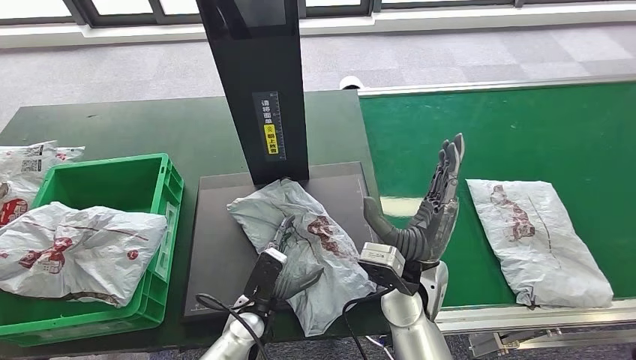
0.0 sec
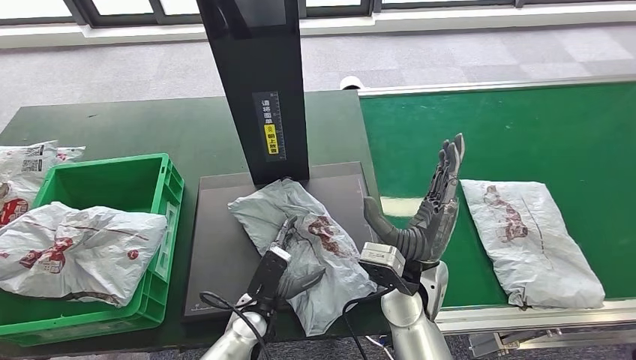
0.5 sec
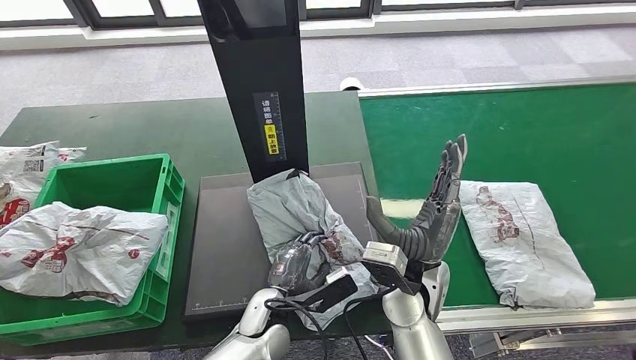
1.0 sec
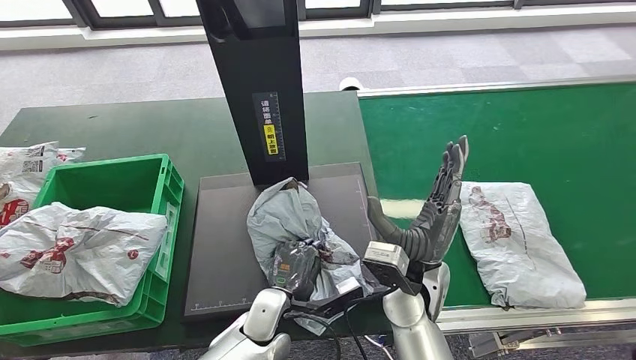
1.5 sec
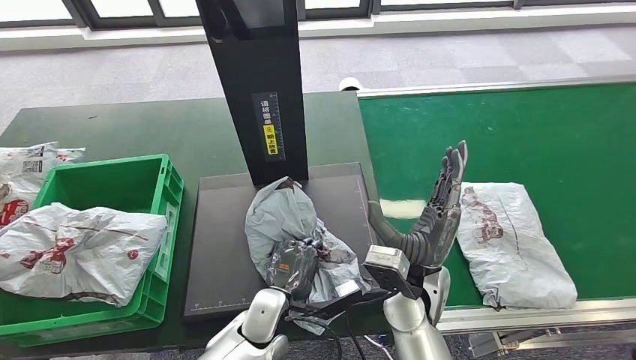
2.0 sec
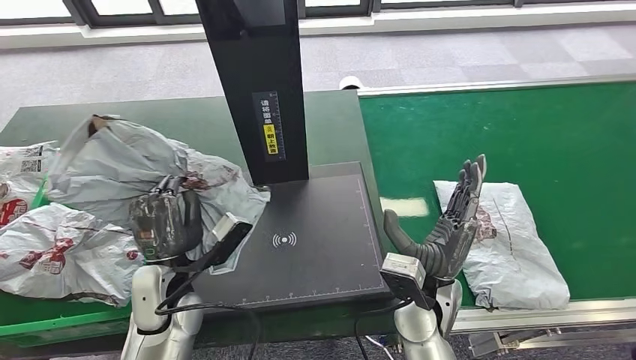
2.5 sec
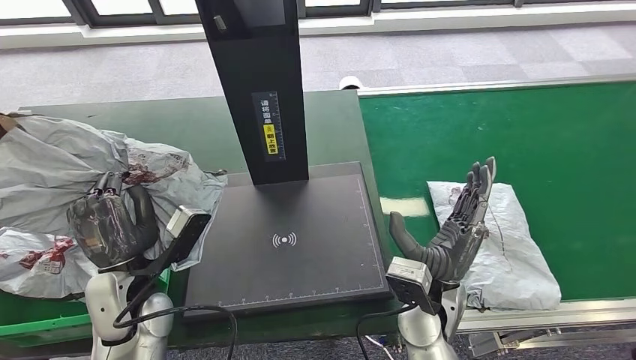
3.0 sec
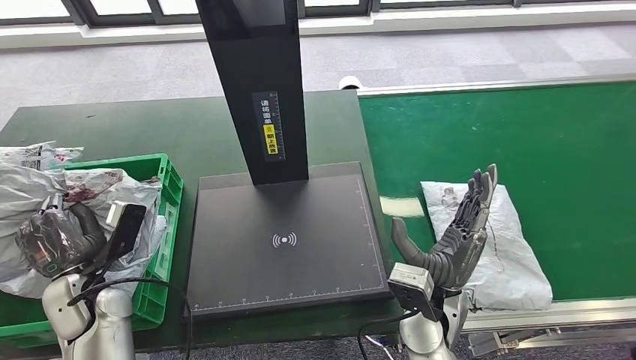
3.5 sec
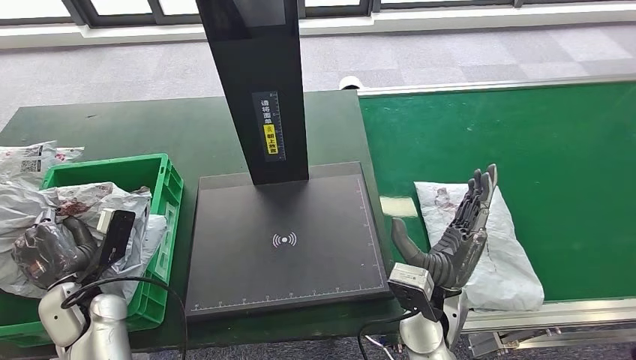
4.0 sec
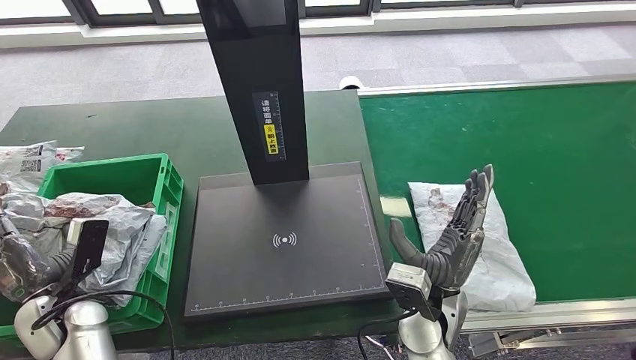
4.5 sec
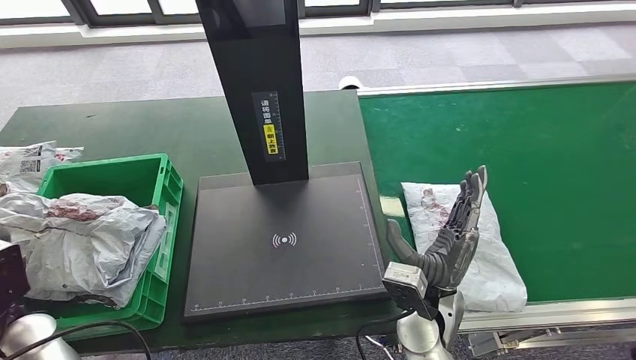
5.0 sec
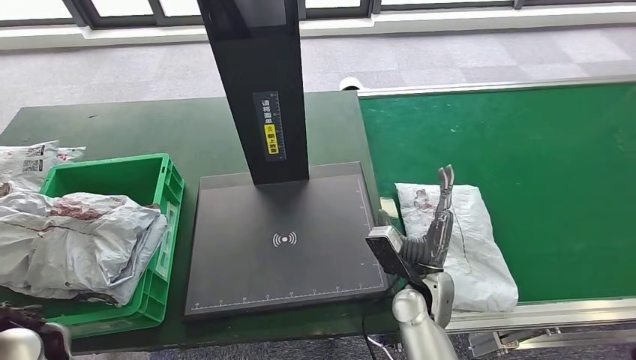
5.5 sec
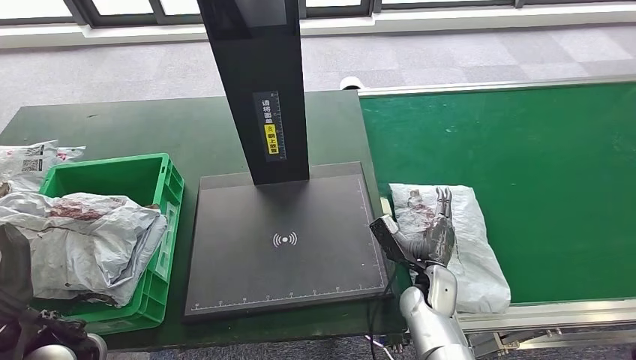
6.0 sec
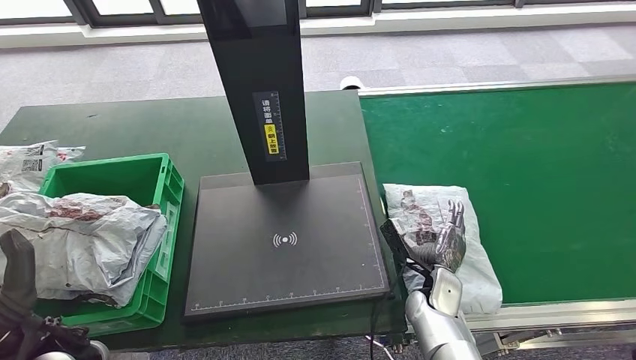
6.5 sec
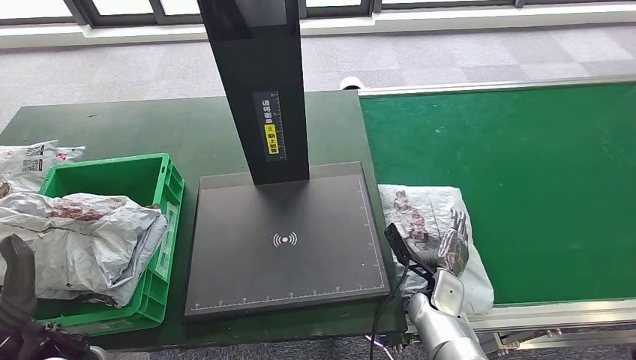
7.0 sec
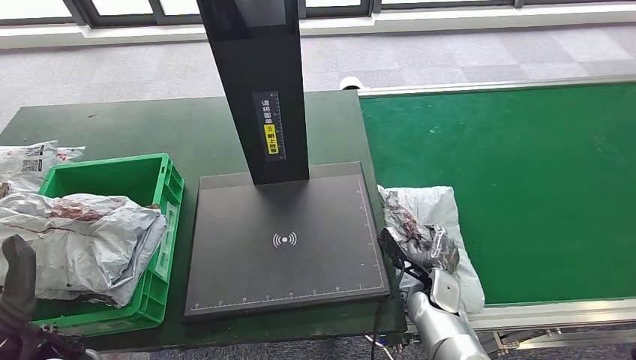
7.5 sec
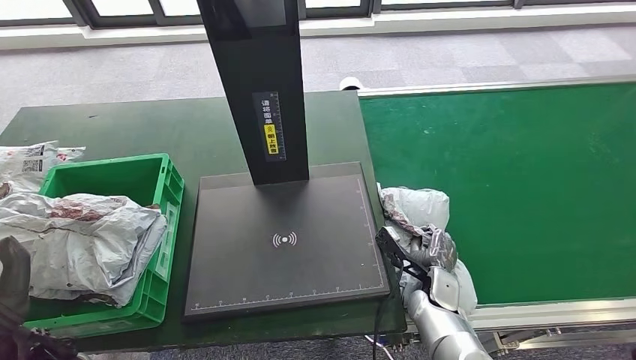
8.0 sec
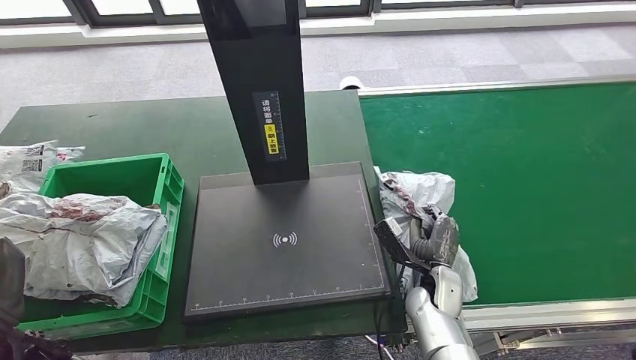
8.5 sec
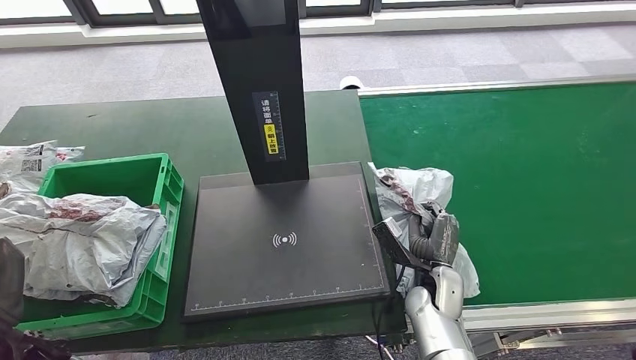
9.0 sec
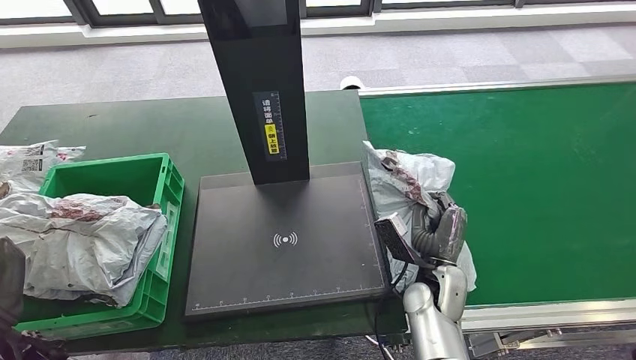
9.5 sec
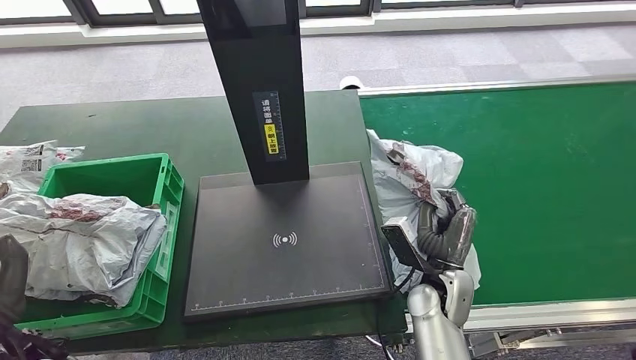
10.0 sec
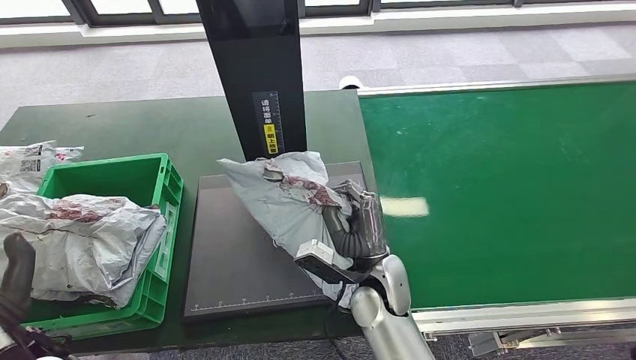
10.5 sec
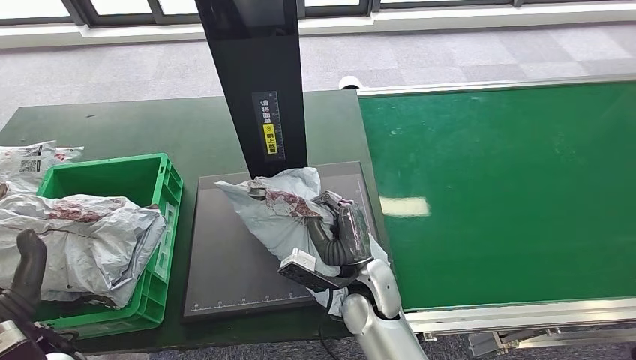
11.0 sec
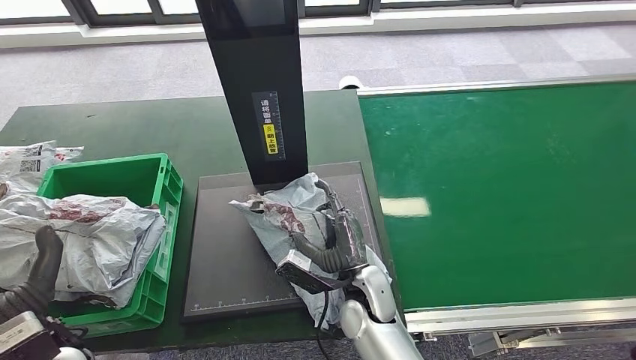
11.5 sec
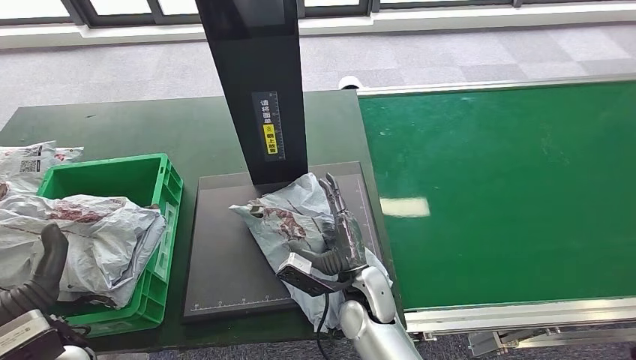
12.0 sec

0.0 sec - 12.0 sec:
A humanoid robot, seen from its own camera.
Step, 0.0 sec - 3.5 sec: Pick up the parcel from the inbound machine.
Step, 4.0 sec - 6.0 sec: Place the parcel into the delivery box.
Step, 6.5 sec - 8.5 sec: Pick up the parcel from the conveyor belt.
4.0 sec - 6.0 sec: The right hand heads downward, covering roughly 10 cm. The left hand is displaced upward and backward by approximately 10 cm.
8.0 sec - 10.0 sec: The right hand goes some 10 cm upward.
10.0 sec - 12.0 sec: The right hand goes roughly 15 cm to the left.

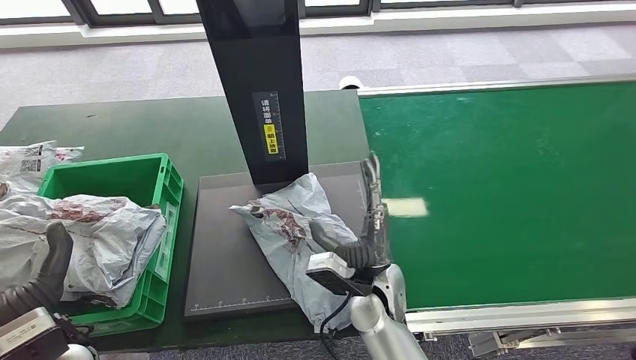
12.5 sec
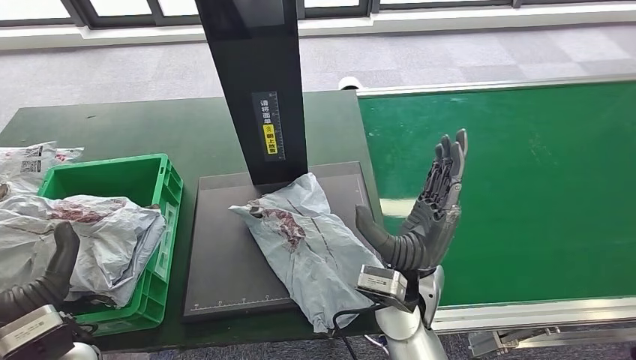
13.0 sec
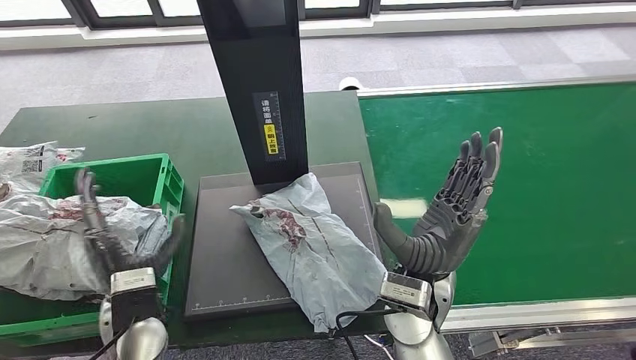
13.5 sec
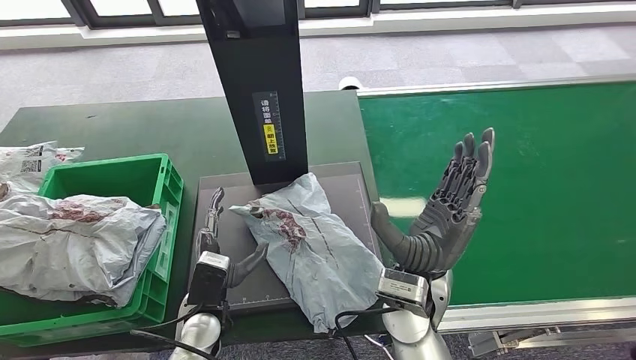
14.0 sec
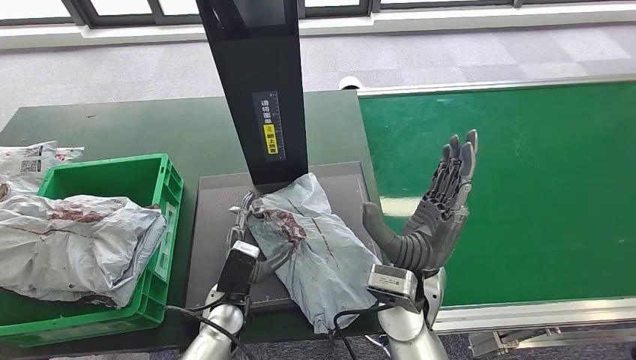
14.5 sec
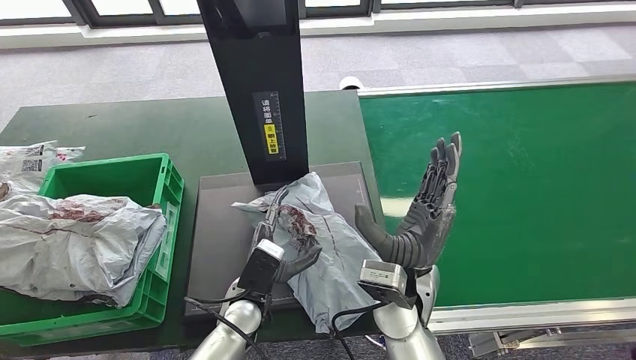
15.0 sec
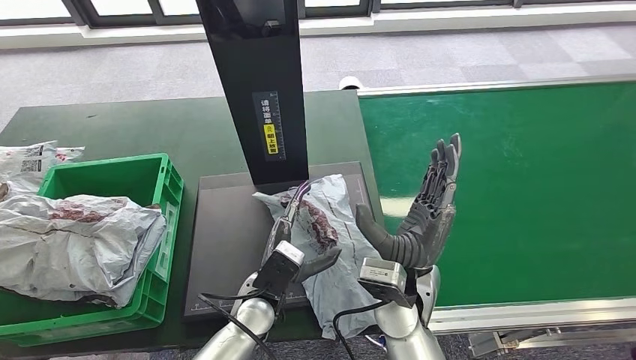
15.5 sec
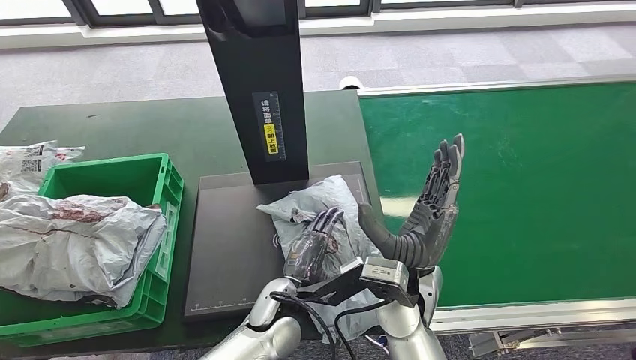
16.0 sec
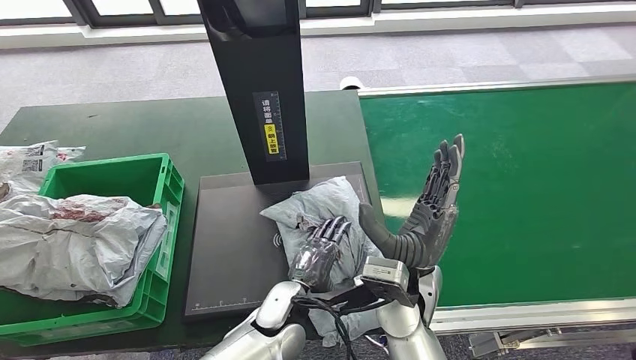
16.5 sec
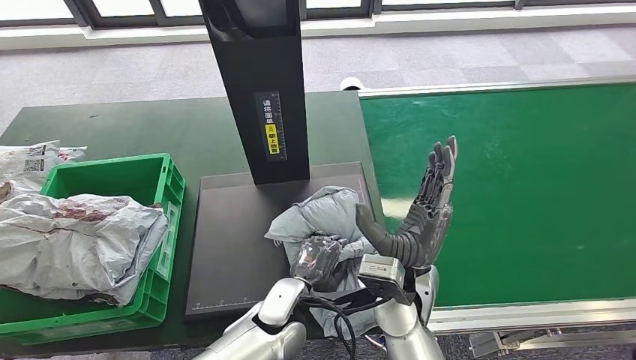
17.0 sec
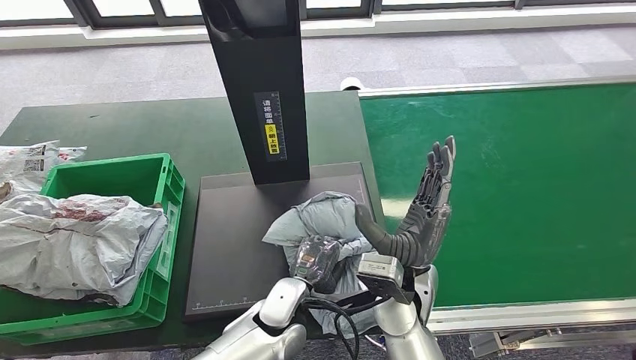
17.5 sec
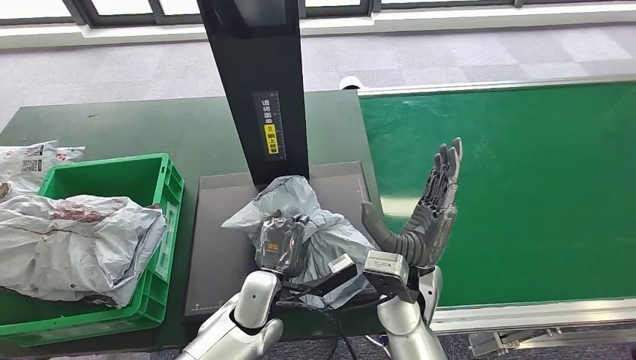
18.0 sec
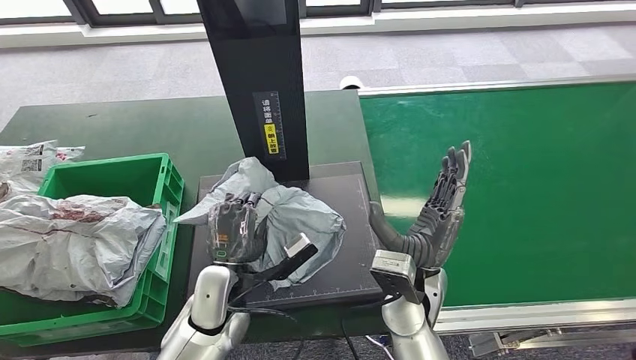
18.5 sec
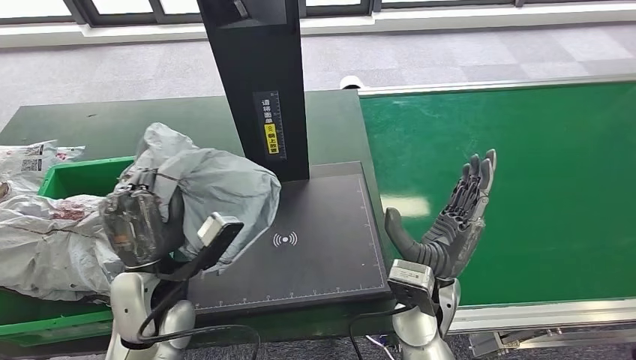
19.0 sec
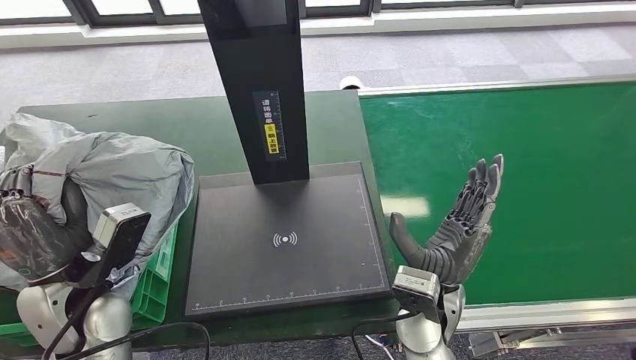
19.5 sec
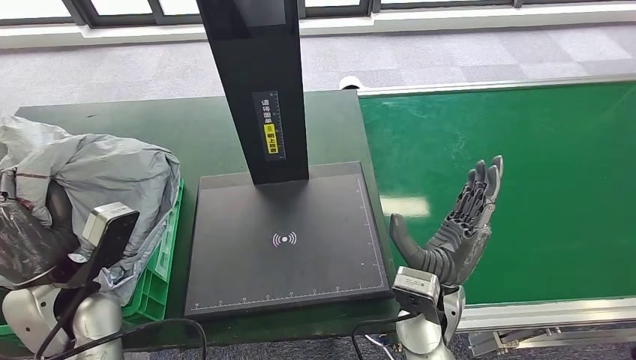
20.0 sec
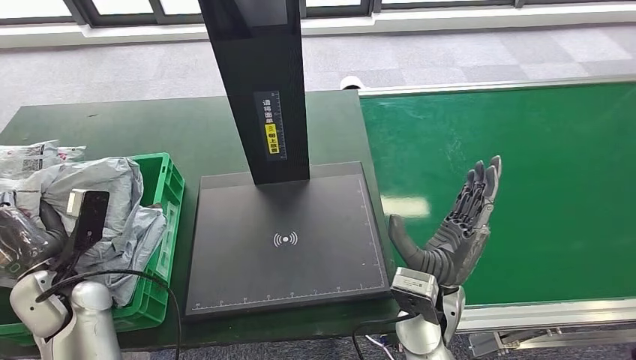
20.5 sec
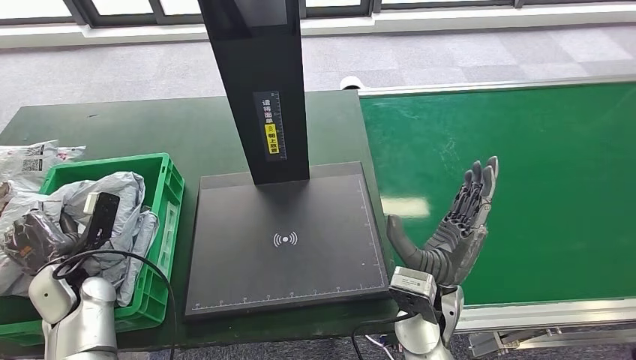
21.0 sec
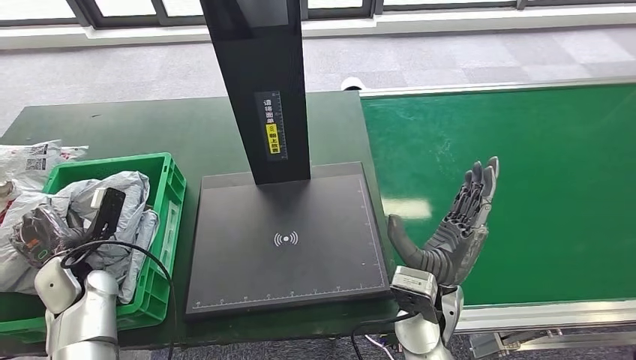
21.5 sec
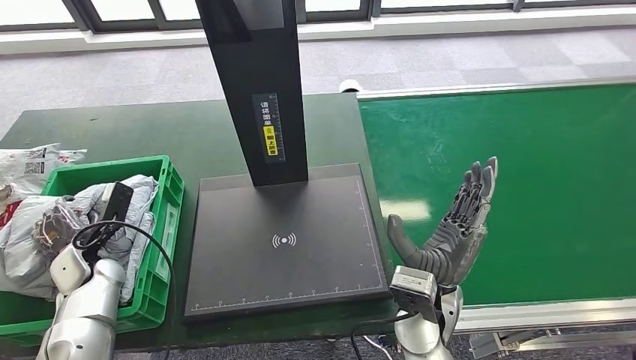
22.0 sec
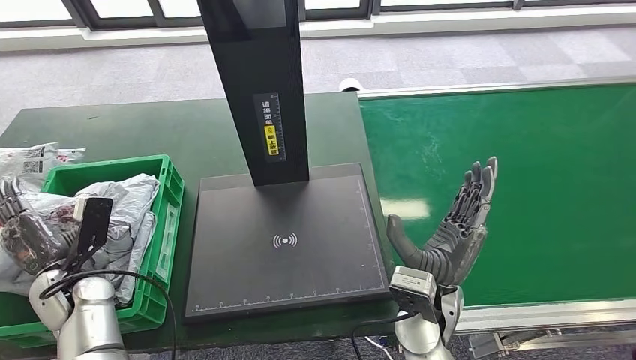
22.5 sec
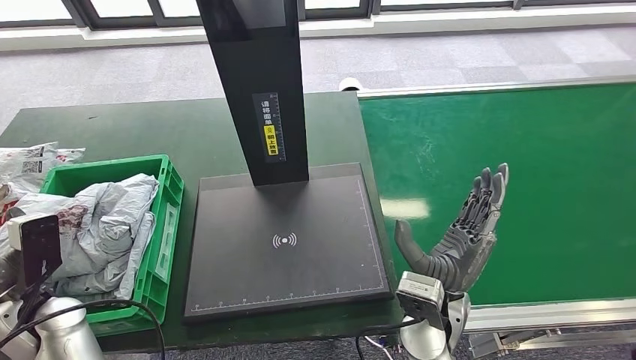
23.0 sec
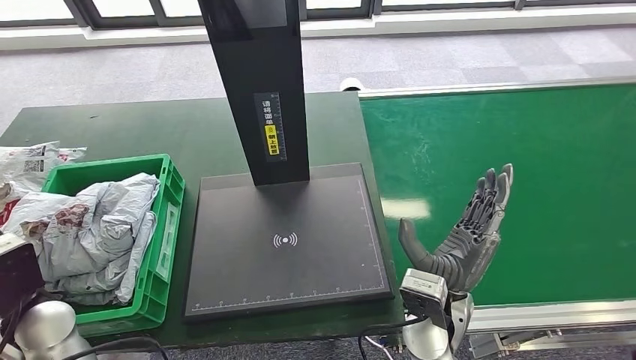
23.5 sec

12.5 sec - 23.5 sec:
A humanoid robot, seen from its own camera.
Step, 17.5 sec - 19.0 sec: Pick up the parcel from the inbound machine.
Step, 20.0 sec - 23.5 sec: Place the parcel into the delivery box.
12.5 sec - 14.5 sec: The right hand shifts about 10 cm upward, while the left hand travels to the right and downward by approximately 25 cm.
14.5 sec - 16.0 sec: The left hand heads to the right, covering some 10 cm.
21.5 sec - 23.5 sec: The left hand goes roughly 10 cm upward and backward.
